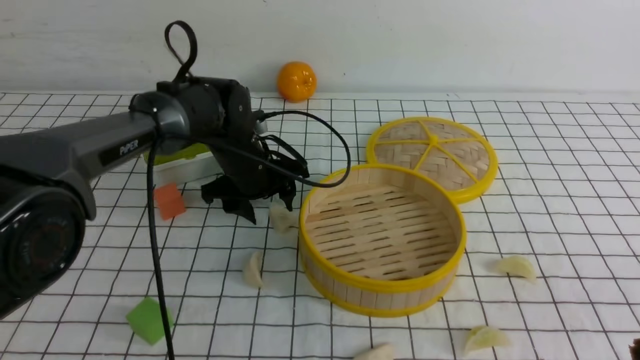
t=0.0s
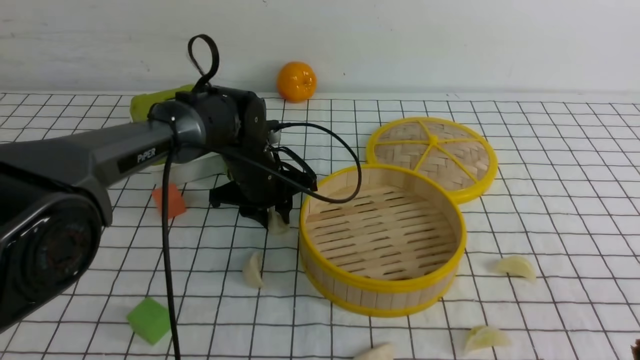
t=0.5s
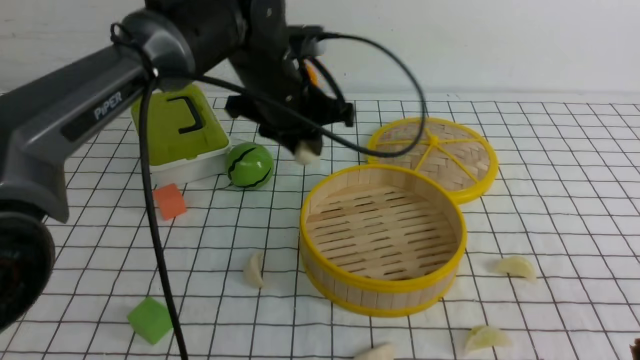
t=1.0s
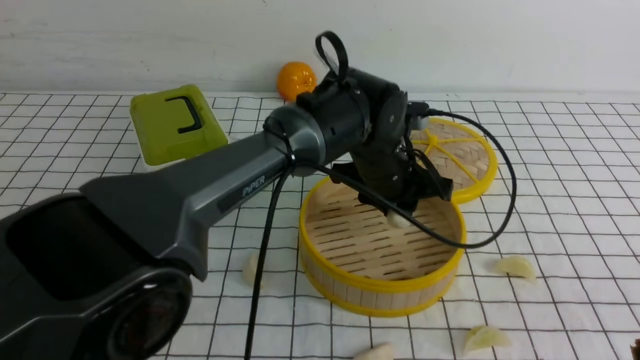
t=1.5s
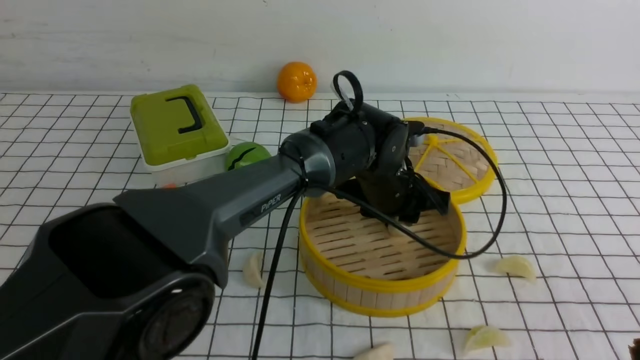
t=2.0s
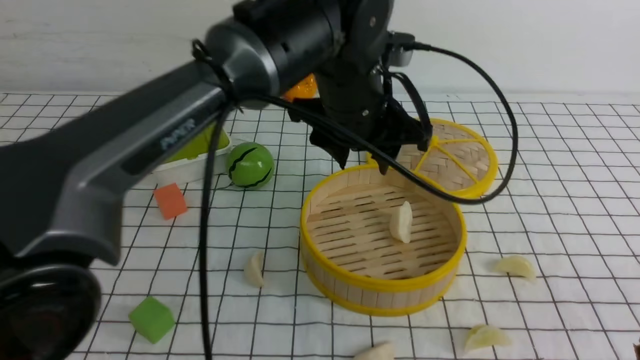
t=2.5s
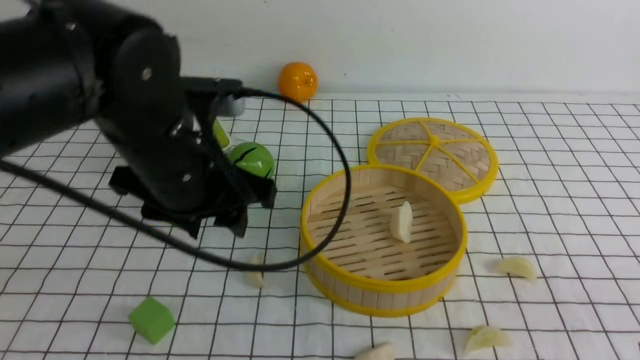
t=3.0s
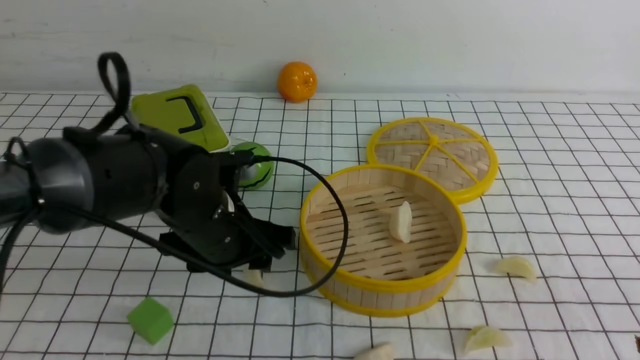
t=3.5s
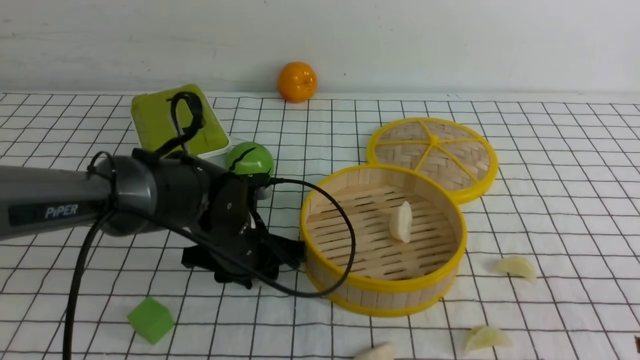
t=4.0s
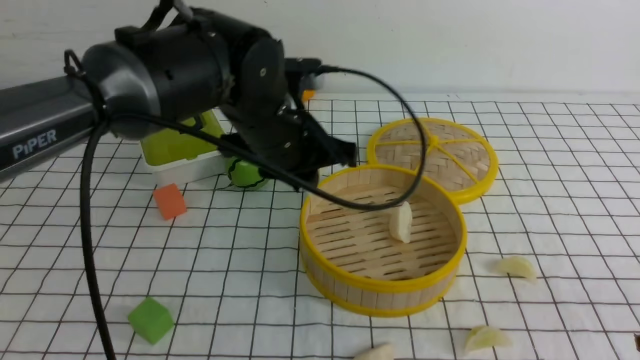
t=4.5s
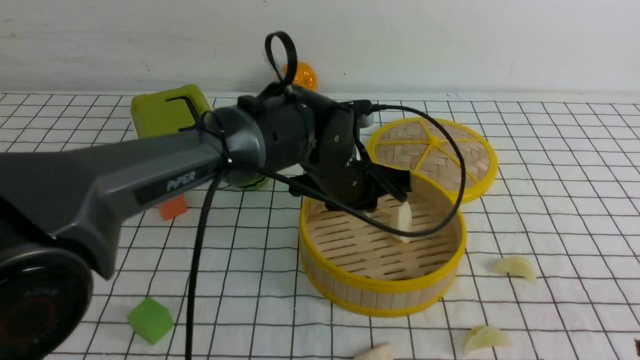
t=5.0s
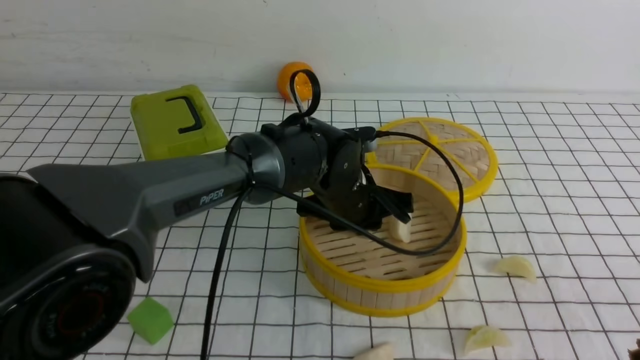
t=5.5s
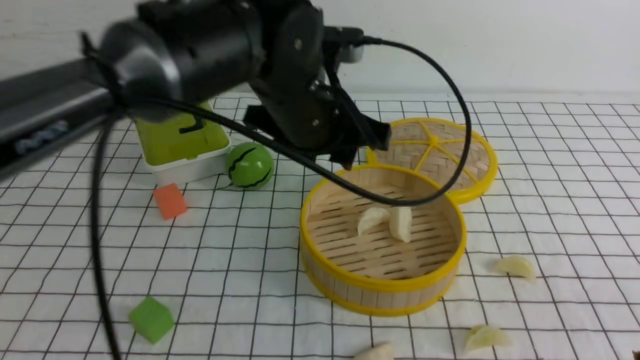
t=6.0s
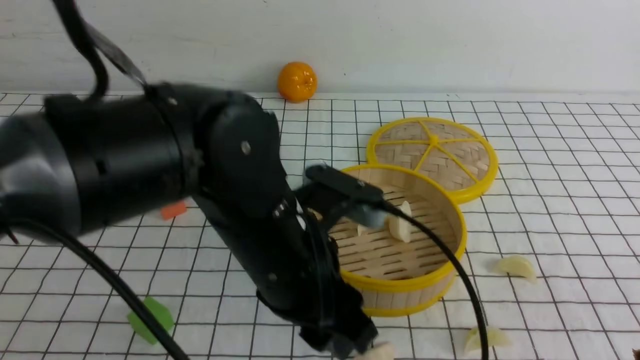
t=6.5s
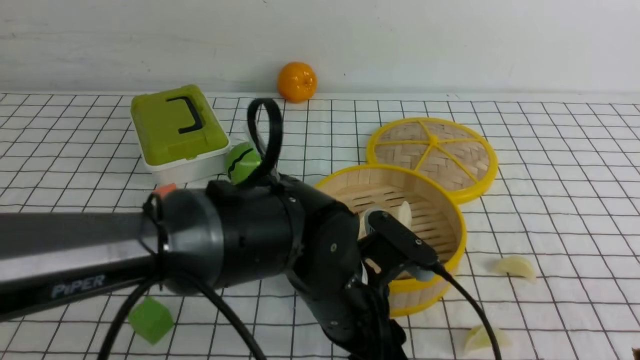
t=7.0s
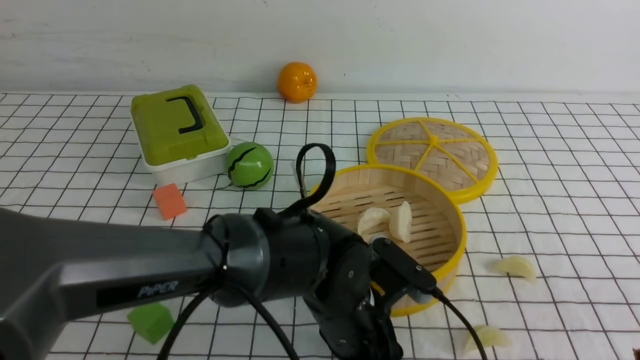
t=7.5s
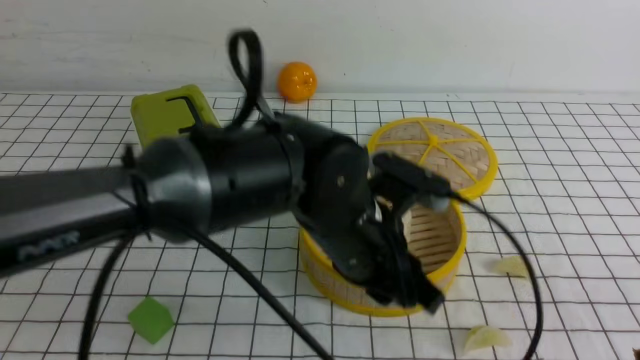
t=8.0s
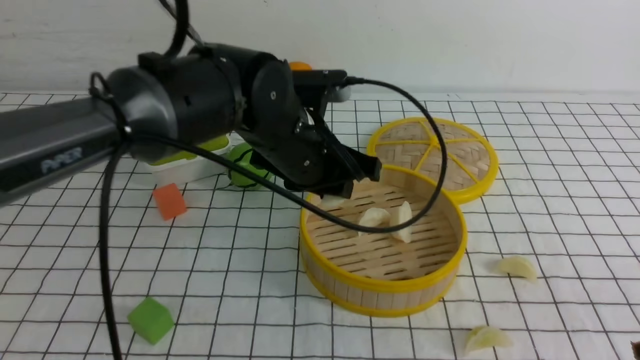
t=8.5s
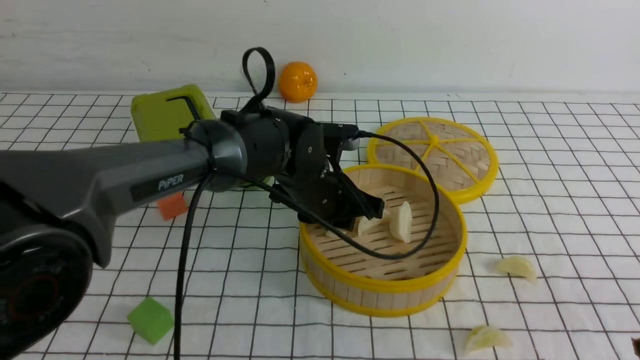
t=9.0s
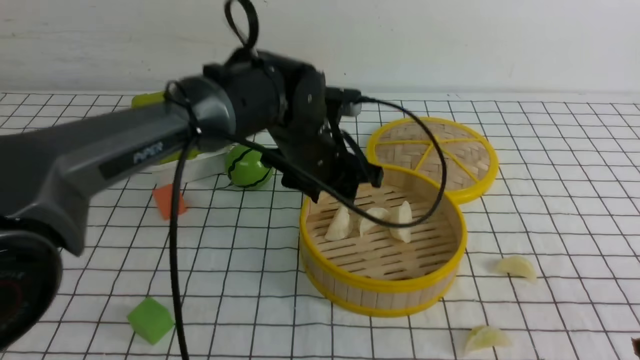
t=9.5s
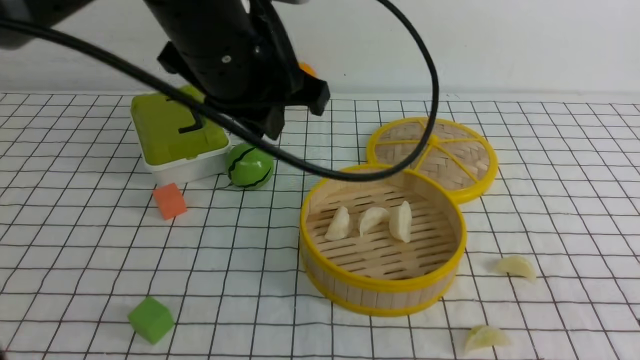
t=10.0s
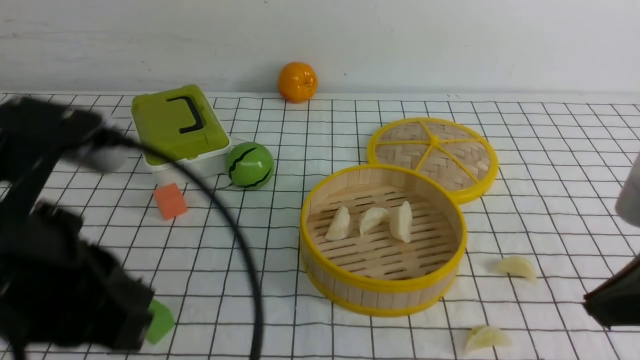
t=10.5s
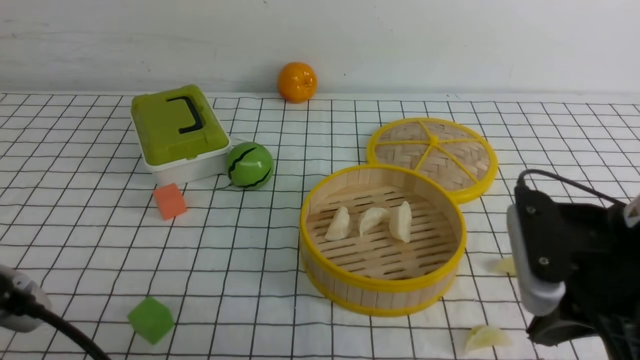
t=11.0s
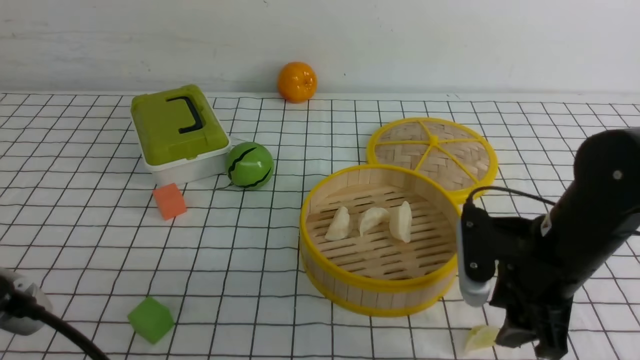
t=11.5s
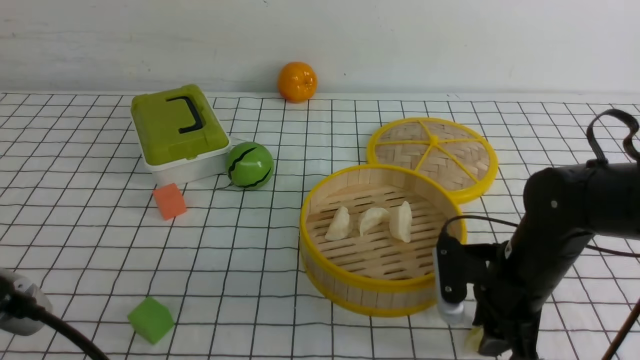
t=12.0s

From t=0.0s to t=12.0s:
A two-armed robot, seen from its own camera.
Task of the whole recording: put the dumplings into the steamer on the table with the white tablecloth.
Step, from t=1.0s to t=2.5s: use the left arm to put the dumpling into the steamer.
Step, from t=3.0s to t=4.5s: use the left arm to grab a dumpling.
Step, from t=5.0s to t=5.5s: use the left arm to put the dumpling into the steamer.
Step, from t=6.0s to t=8.0s: use the left arm to grab a dumpling.
Step, from t=8.5s to t=9.5s: use the left arm to put the dumpling into the steamer.
From t=0.0s to t=2.0s: The left gripper shifts some 15 cm to the right.
From t=2.0s to t=4.0s: The left gripper travels to the left and backward by some 20 cm.
From t=4.0s to t=6.0s: The left gripper moves up and down over approximately 15 cm, changing direction 2 times.
From t=6.0s to t=8.0s: The left gripper heads downward and backward, covering approximately 10 cm.
From t=8.0s to t=10.0s: The left gripper goes roughly 15 cm upward and to the left.
From t=10.0s to t=12.0s: The left gripper heads backward, to the left and downward, covering approximately 25 cm. The right gripper heads downward and forward, covering about 25 cm, and opens its fingers.

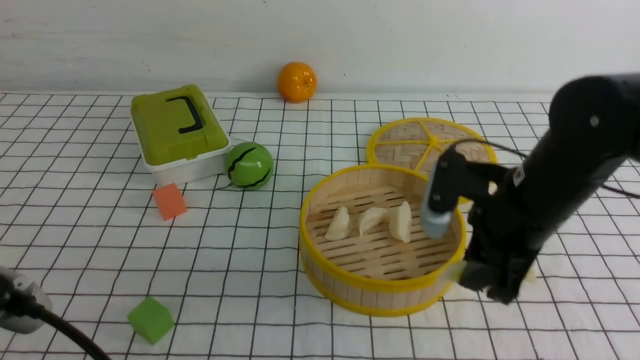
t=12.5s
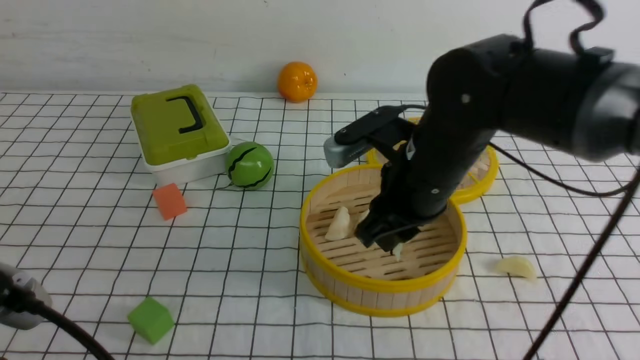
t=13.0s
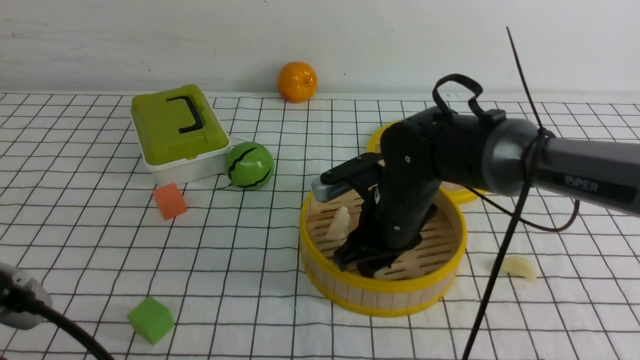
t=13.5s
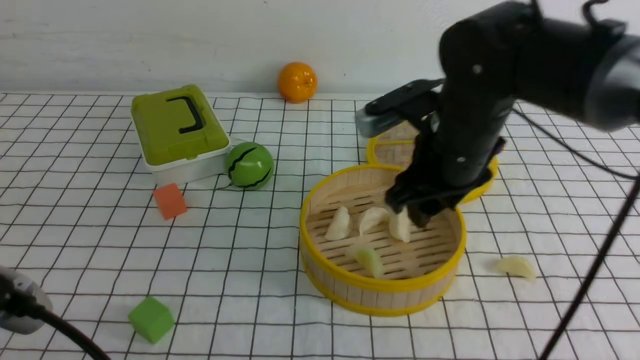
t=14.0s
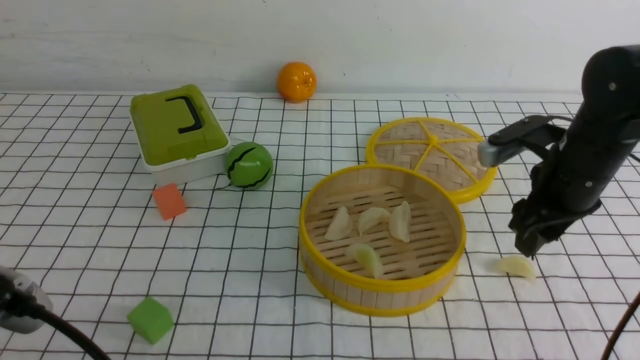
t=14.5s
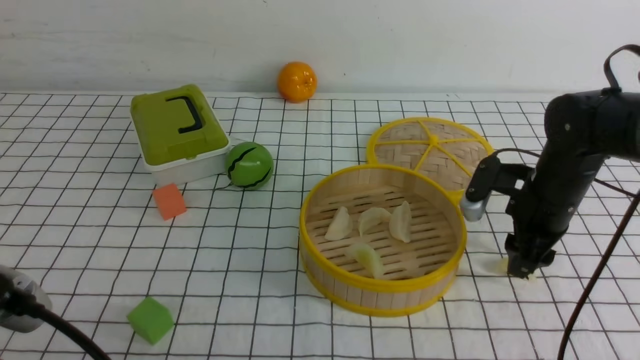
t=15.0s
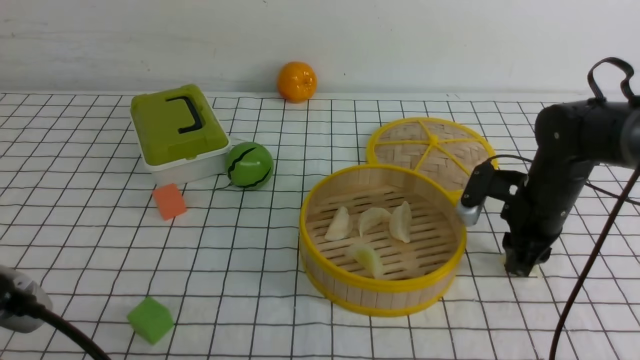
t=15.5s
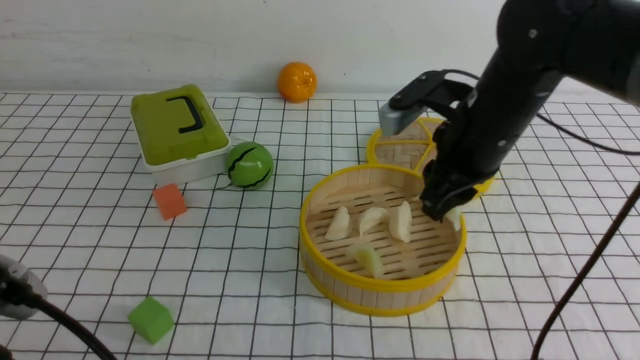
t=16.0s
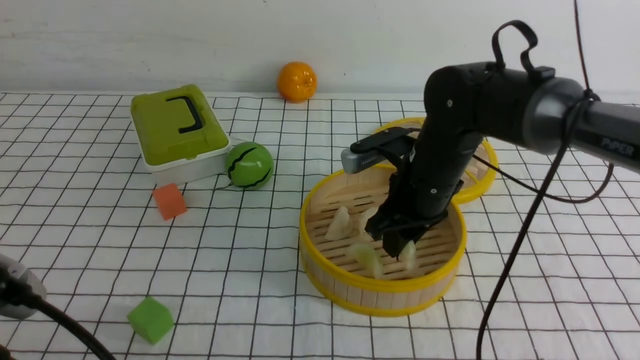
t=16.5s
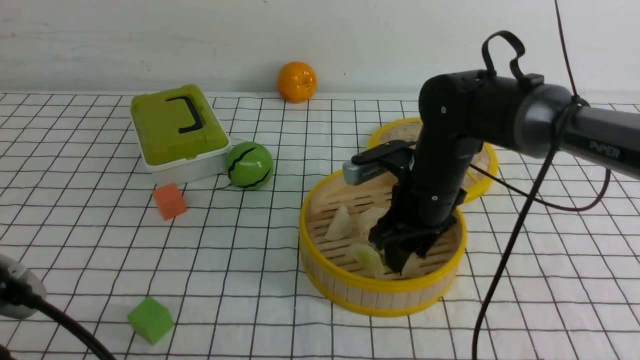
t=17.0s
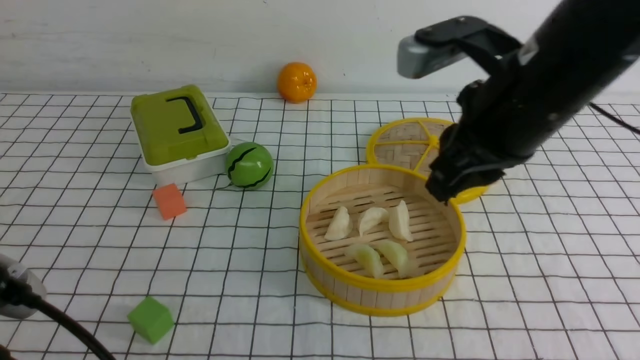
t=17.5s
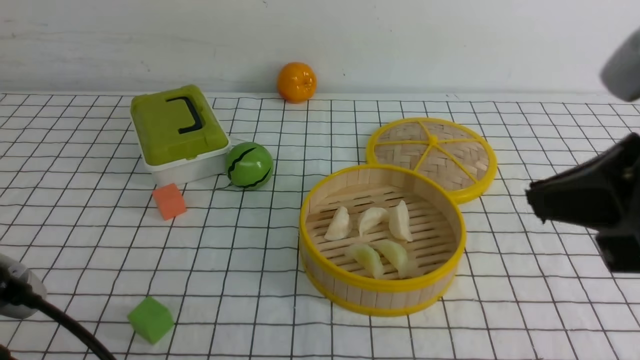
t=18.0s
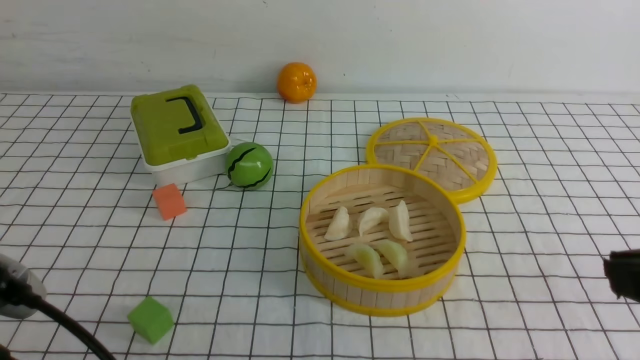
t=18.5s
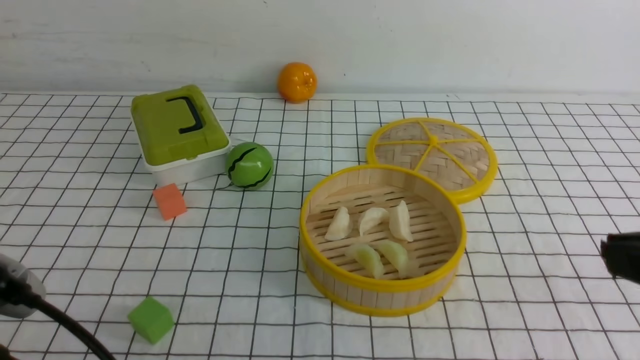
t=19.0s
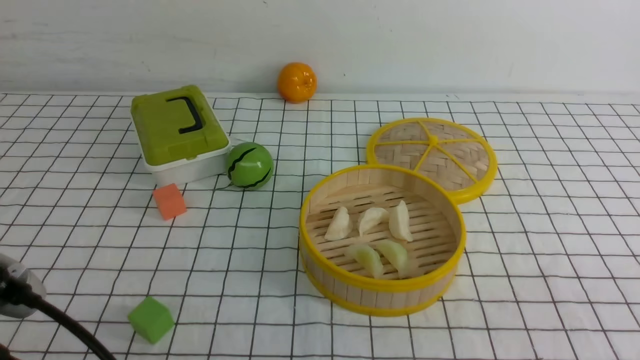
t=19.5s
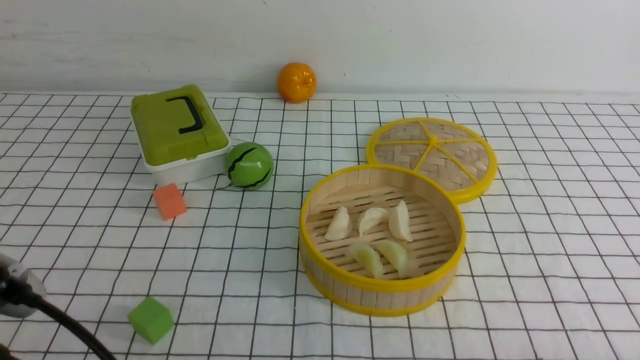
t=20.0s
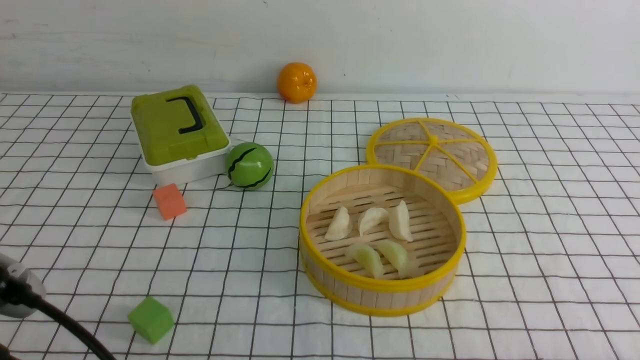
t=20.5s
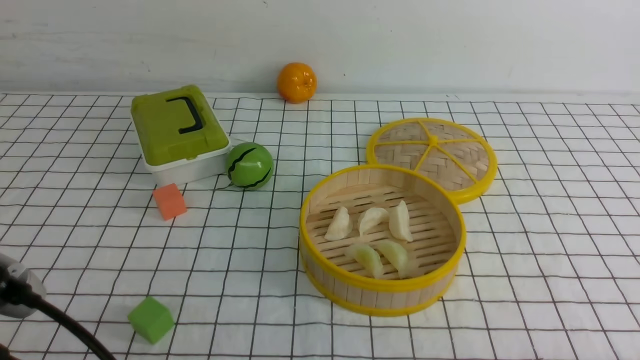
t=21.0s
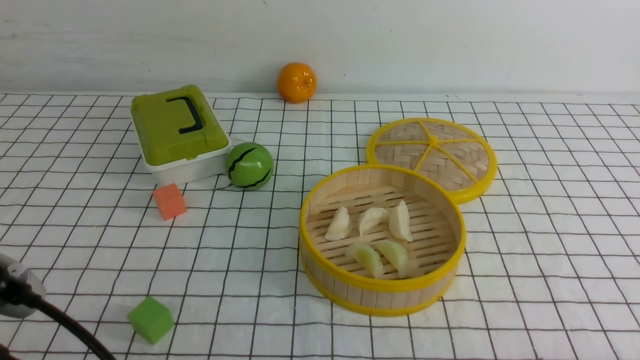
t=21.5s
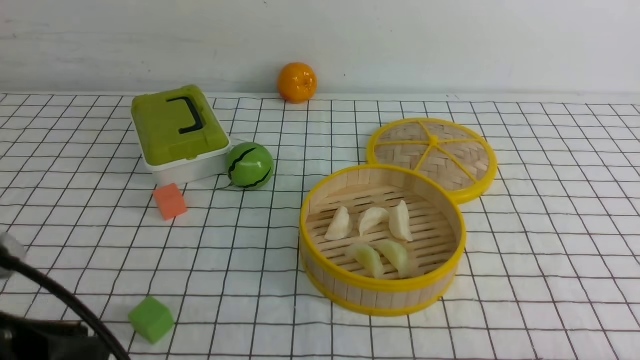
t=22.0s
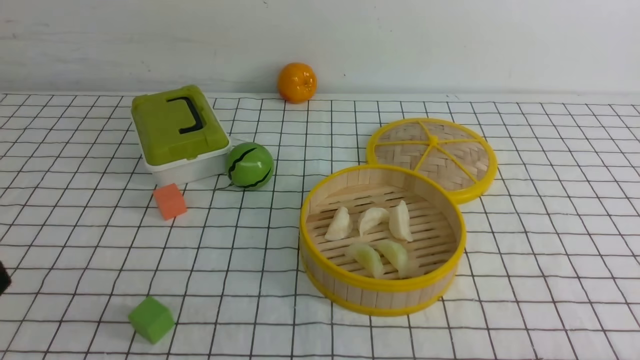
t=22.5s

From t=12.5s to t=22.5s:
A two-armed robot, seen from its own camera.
Task of the whole recording: put the dumplings into the steamer on the table with the white tablecloth.
Step, from t=13.0s to t=13.5s: use the right arm to put the dumpling into the steamer.
Step, from t=14.5s to t=15.5s: use the right arm to grab a dumpling.
Step, from t=16.0s to t=17.0s: use the right arm to put the dumpling into the steamer.
From t=12.5s to t=14.5s: The right gripper travels to the right and forward by about 10 cm, and opens.
From t=14.5s to t=16.5s: The right gripper travels to the left by about 15 cm, and closes up.
From t=16.5s to t=18.5s: The right gripper moves backward, upward and to the right, some 35 cm, and closes.
From t=18.5s to t=20.5s: The right gripper is displaced downward by about 20 cm.
From t=20.5s to t=22.5s: The left gripper moves approximately 5 cm, and closes up.
